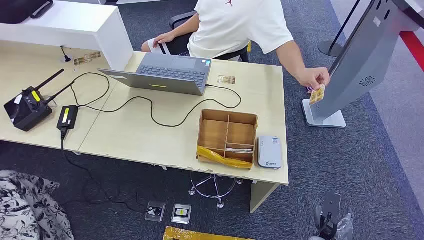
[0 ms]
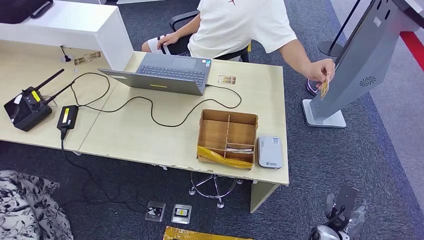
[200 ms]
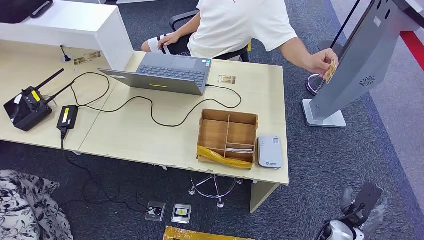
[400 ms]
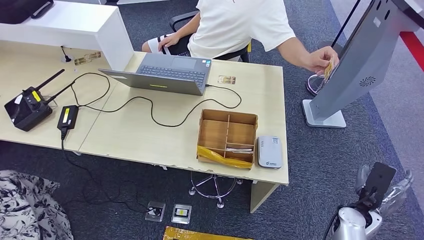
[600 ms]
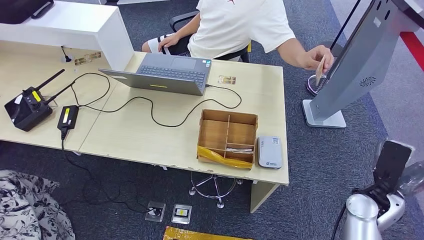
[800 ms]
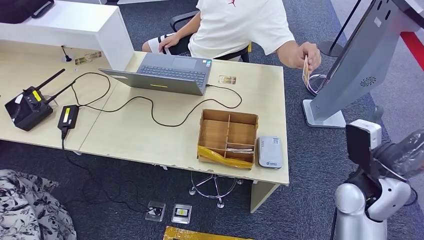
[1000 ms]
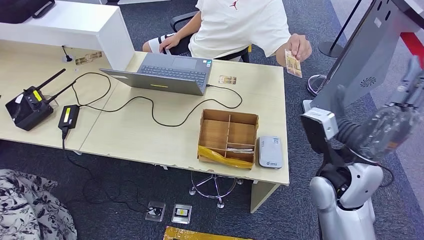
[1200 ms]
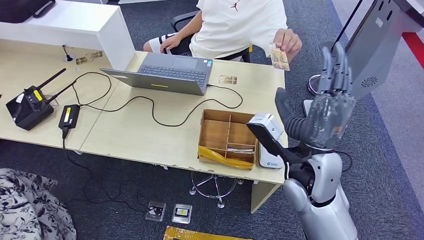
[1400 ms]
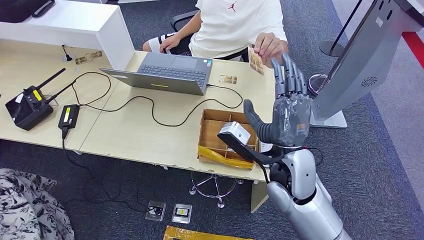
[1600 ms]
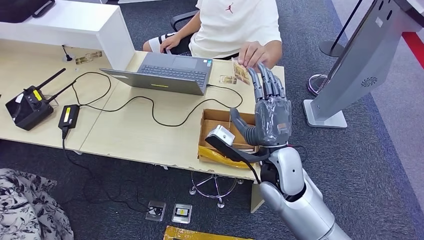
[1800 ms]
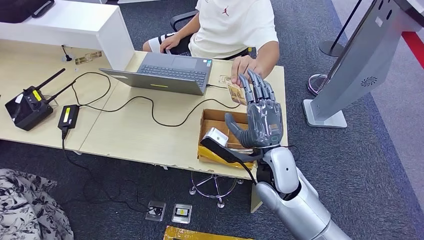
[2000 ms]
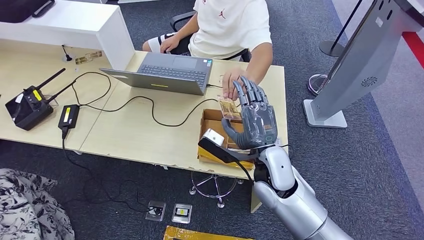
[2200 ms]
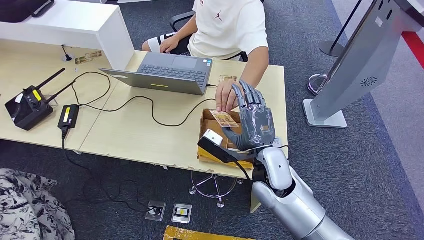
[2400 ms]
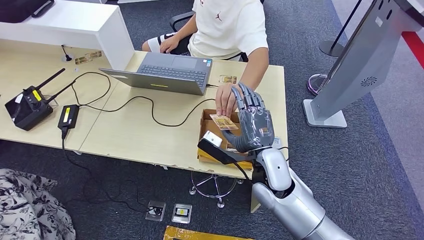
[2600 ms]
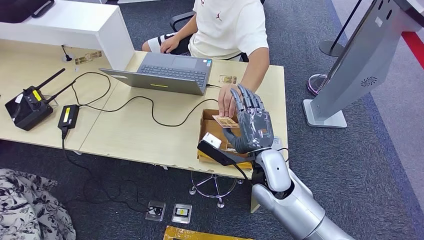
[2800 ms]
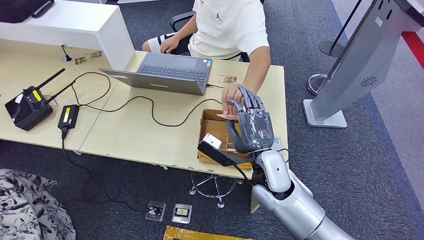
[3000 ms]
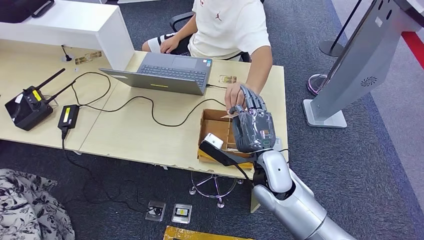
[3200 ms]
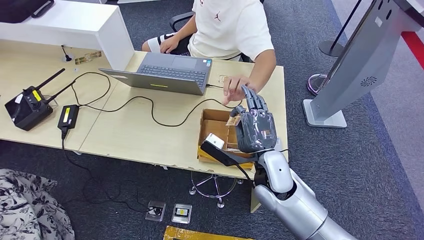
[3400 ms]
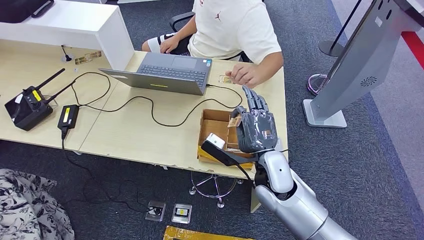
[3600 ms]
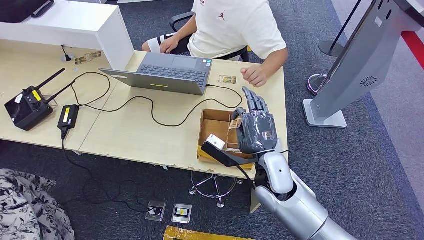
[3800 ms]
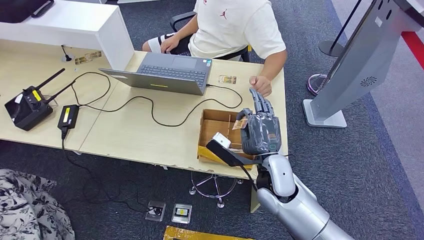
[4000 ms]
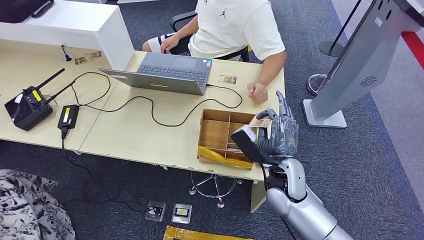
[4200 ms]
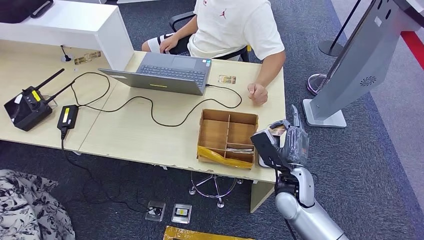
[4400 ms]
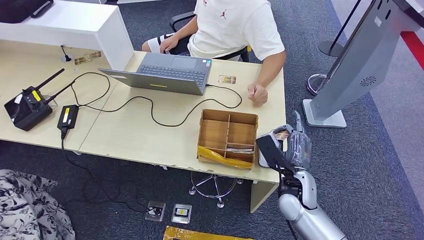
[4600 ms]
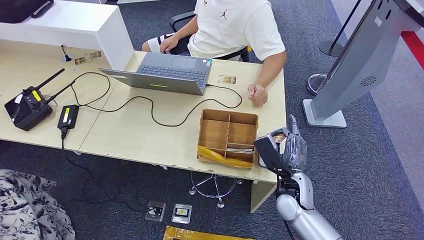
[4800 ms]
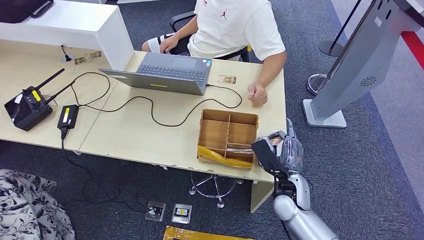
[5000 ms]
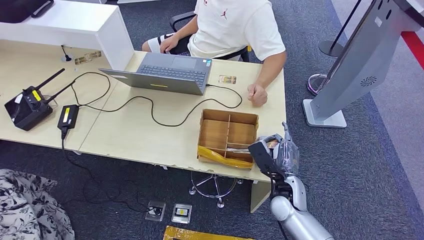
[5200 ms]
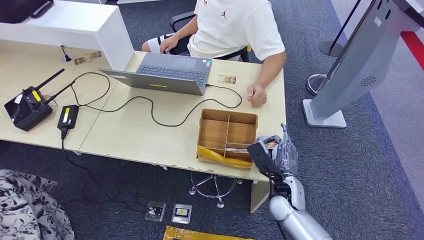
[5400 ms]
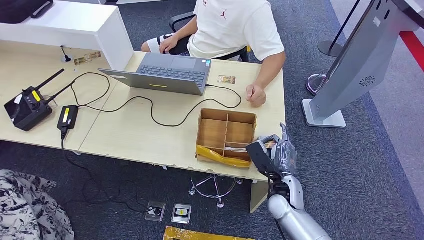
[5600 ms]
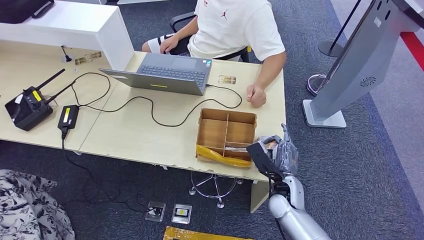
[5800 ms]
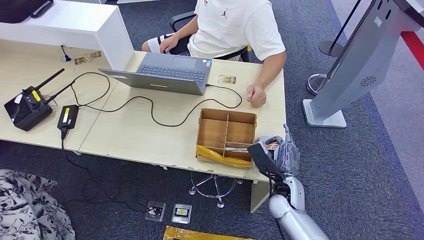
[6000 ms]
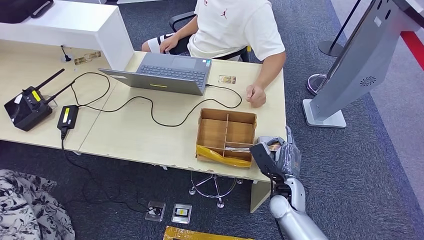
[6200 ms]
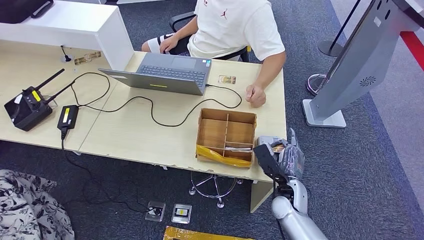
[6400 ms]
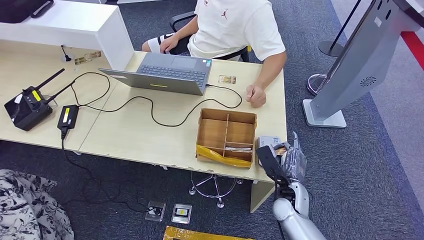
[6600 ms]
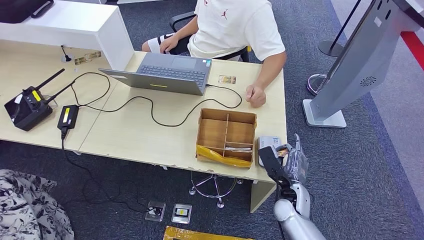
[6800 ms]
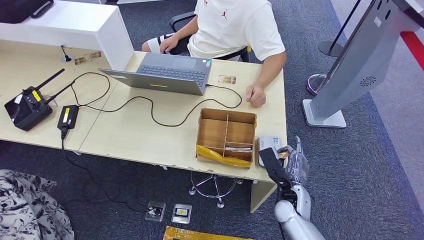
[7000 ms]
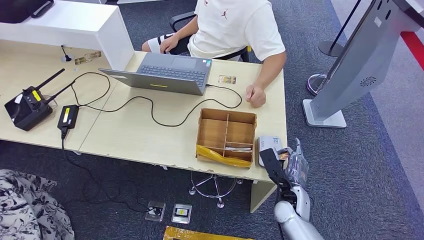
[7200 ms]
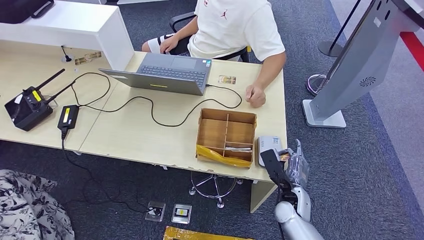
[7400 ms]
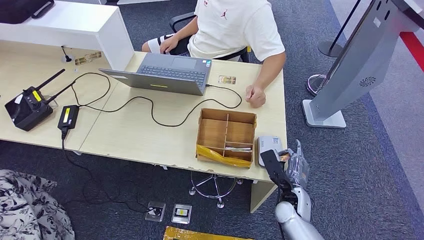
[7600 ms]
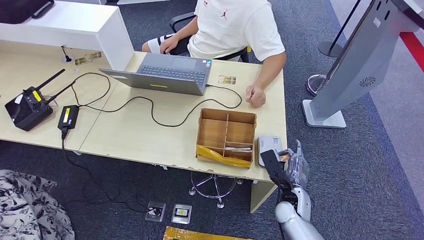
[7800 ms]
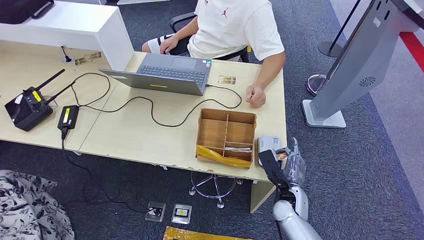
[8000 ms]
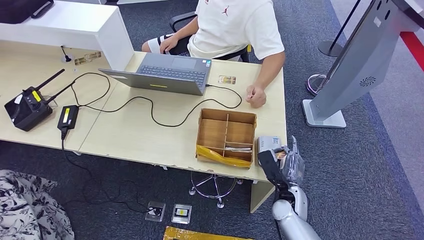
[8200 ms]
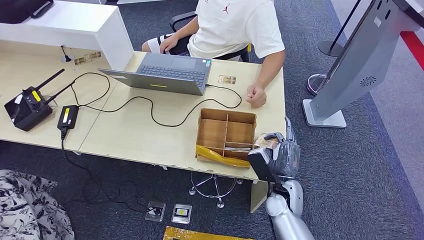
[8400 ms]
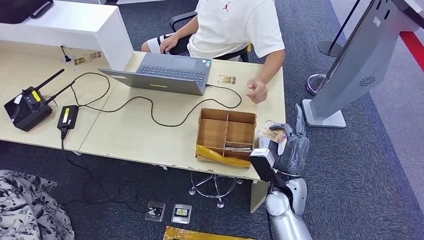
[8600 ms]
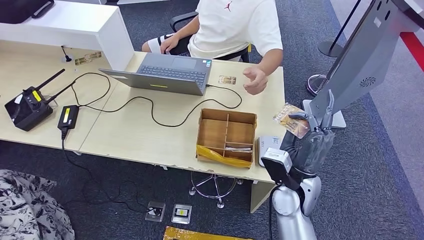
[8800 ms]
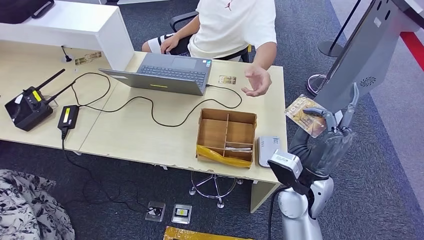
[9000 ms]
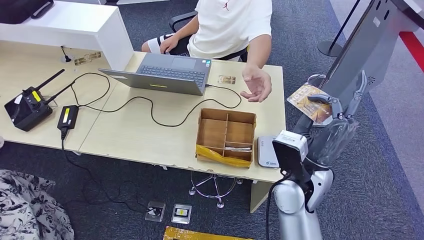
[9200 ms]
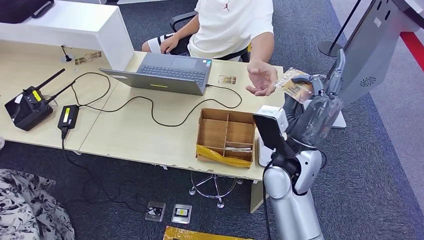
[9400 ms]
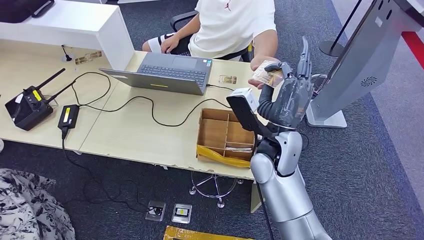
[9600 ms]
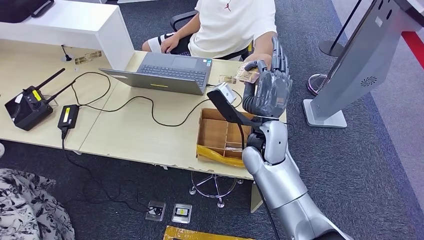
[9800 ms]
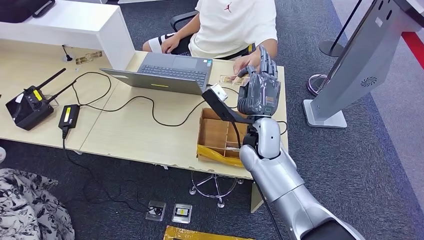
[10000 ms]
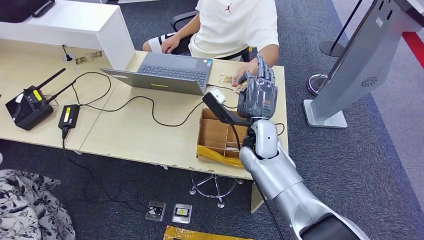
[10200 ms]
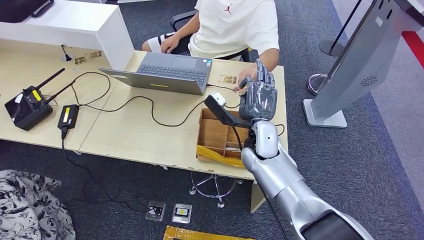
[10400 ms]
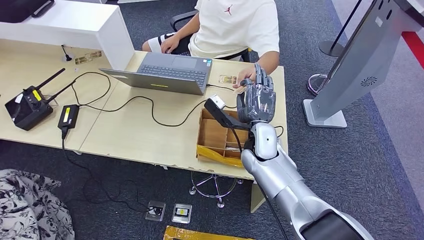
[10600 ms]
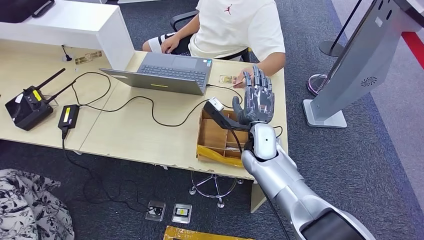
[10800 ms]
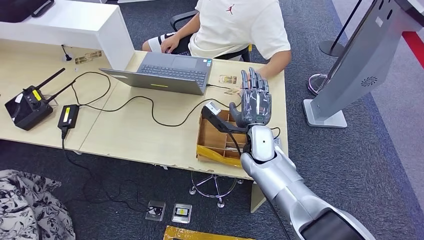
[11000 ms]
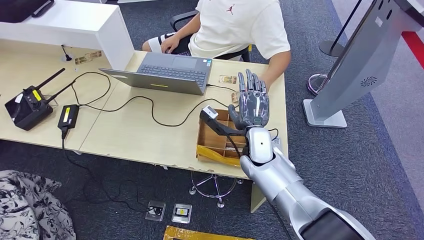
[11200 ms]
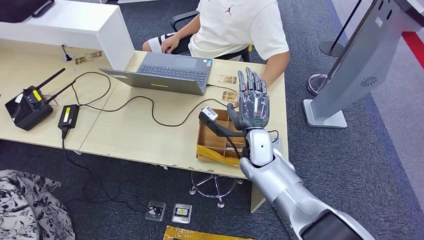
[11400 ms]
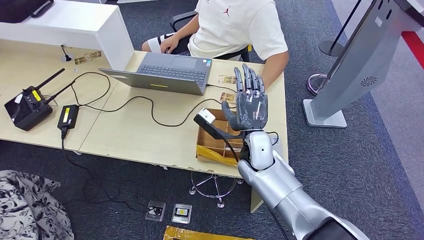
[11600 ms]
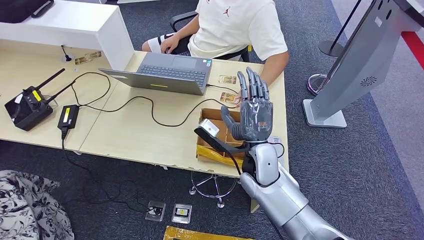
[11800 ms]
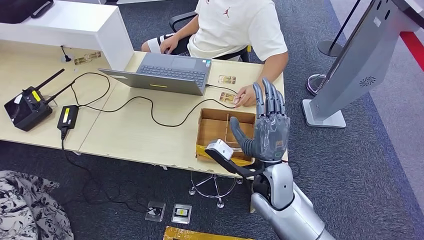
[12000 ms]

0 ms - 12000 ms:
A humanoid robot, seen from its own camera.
Step, 0 ms - 3800 ms: Take the ID card from the person's hand.
Step, 4600 ms - 7400 ms: Place the ID card on the card reader.
Step, 8400 ms - 10800 ms: Hand the ID card to the person.
1600 ms - 3000 ms: The right hand shifts about 5 cm downward.
3000 ms - 4400 ms: The right hand goes approximately 10 cm to the right and downward.
4400 ms - 6000 ms: The right hand moves downward, approximately 5 cm.
6000 ms - 7600 ms: The hands move only a little.
7600 ms - 9000 ms: The right hand shifts some 15 cm upward.
9000 ms - 10400 ms: The right hand heads forward and to the left, covering approximately 15 cm.
10400 ms - 12000 ms: The right hand travels backward by roughly 10 cm.

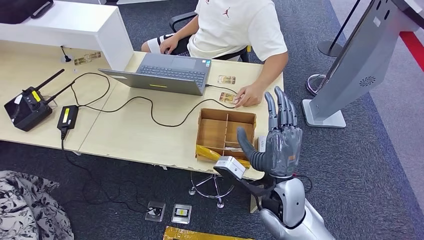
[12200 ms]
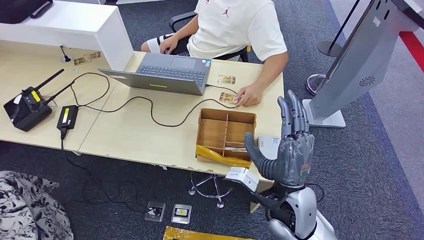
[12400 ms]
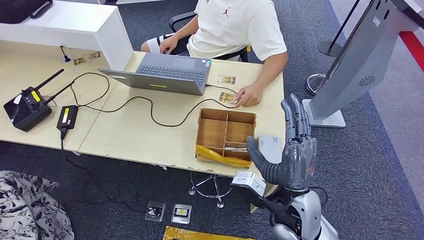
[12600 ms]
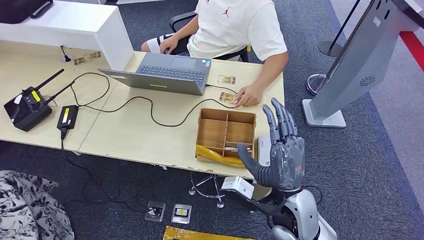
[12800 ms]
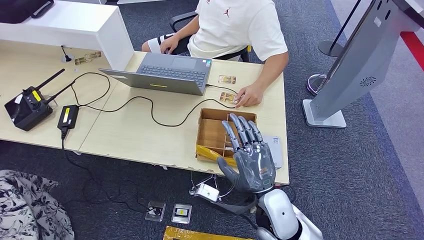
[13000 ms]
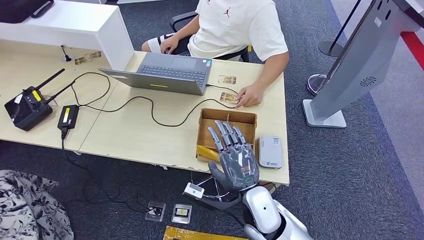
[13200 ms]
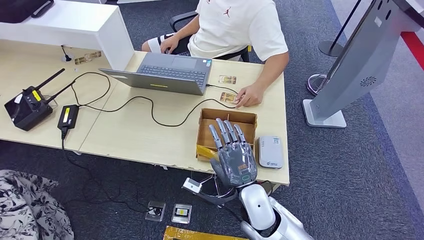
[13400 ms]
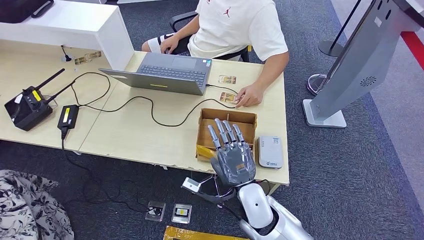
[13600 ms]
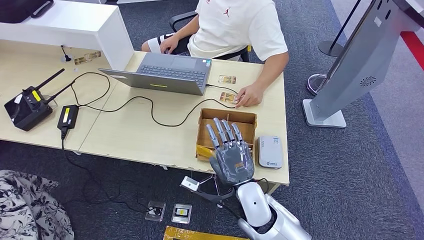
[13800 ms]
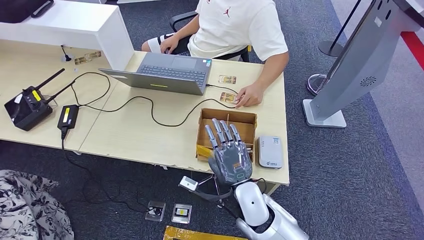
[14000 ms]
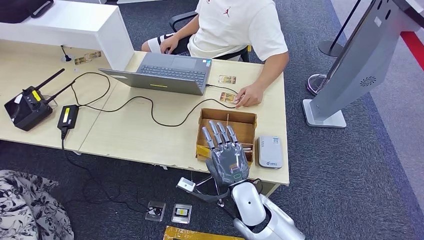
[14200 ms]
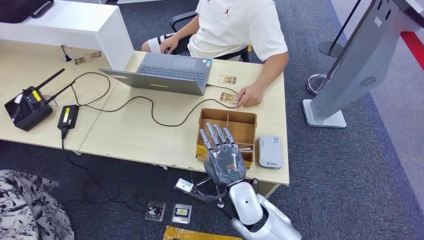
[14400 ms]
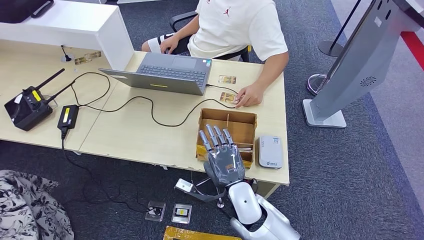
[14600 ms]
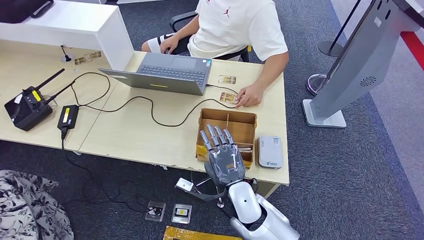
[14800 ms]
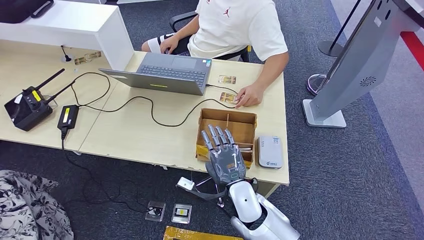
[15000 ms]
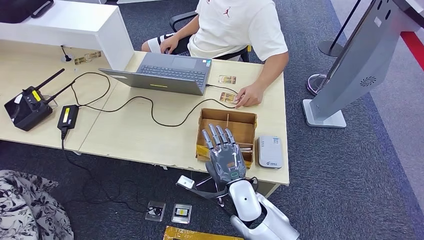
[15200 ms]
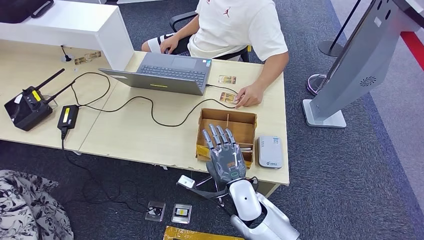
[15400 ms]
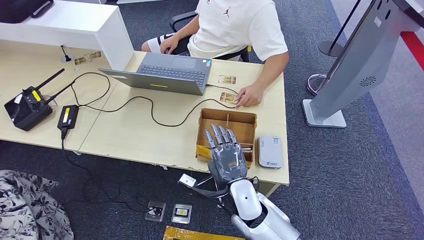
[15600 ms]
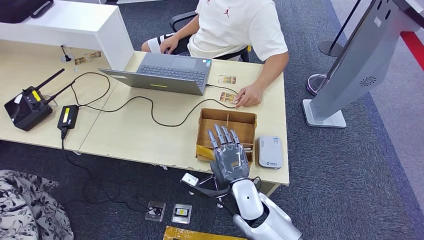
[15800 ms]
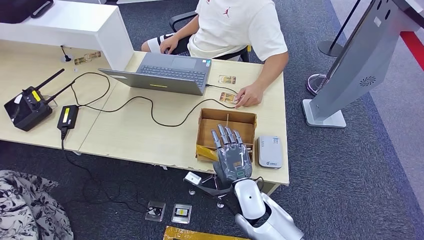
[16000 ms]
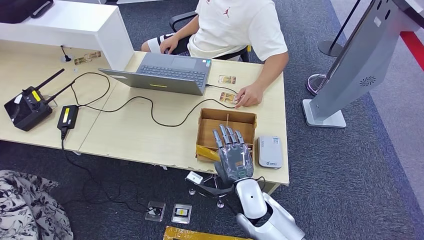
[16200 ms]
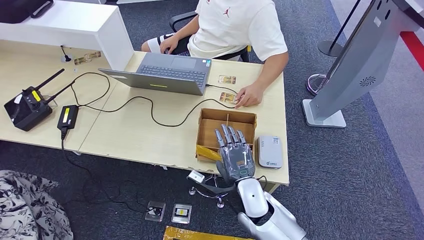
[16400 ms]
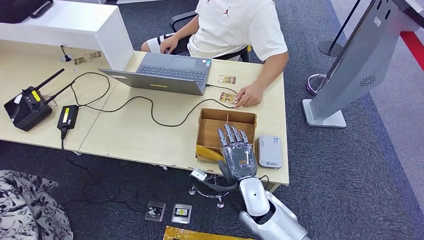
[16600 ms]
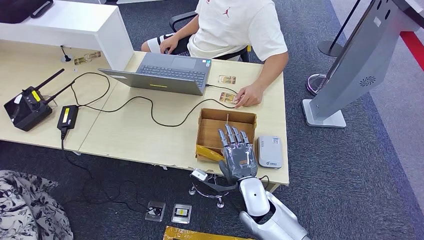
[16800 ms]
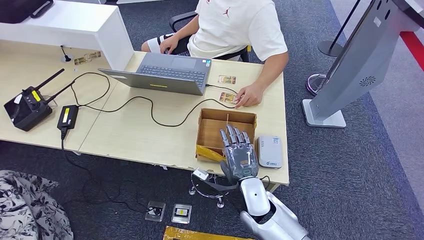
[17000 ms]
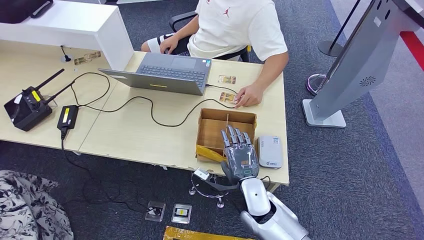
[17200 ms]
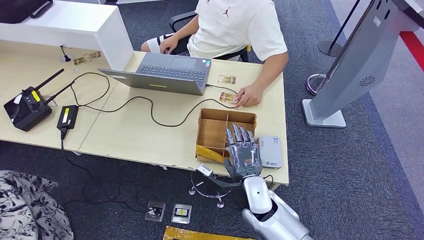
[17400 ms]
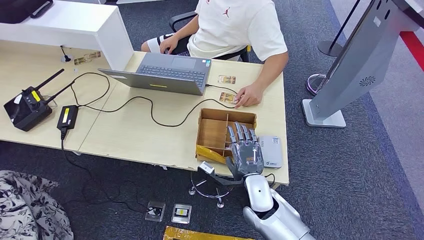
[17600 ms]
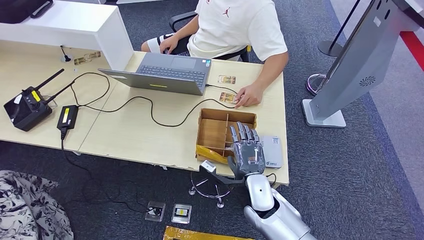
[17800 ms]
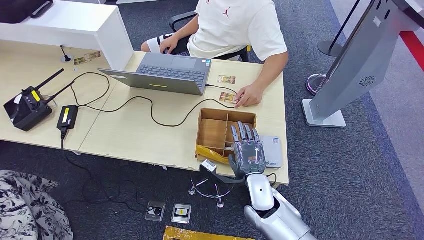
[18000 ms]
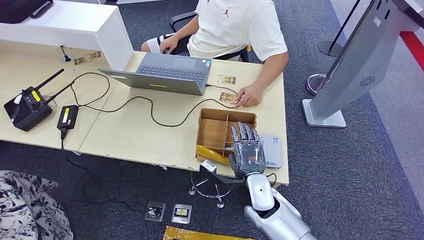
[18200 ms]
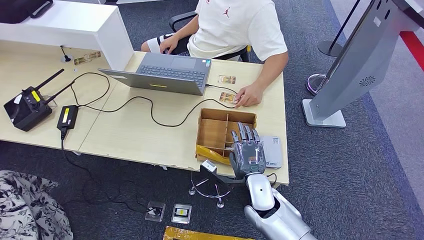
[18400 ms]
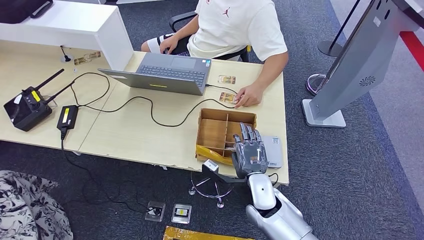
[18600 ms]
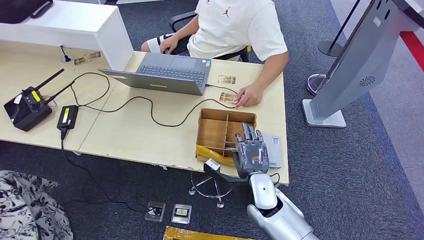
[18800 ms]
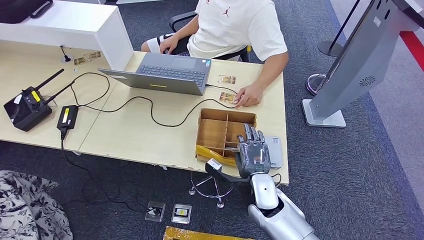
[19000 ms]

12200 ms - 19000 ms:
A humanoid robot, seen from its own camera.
12200 ms - 13600 ms: The right hand is displaced downward by about 5 cm.
13600 ms - 16200 ms: The hands stay close to where they were, moving slightly.
16200 ms - 19000 ms: The hands stay close to where they were, moving slightly.
